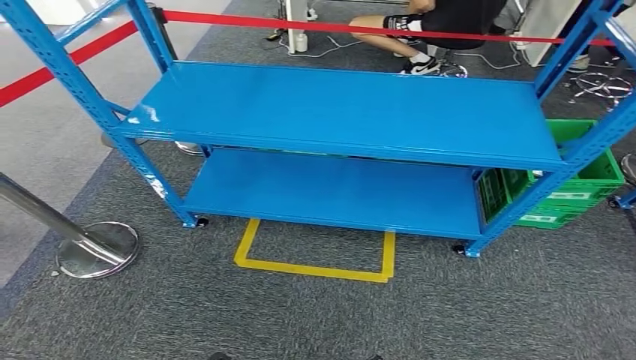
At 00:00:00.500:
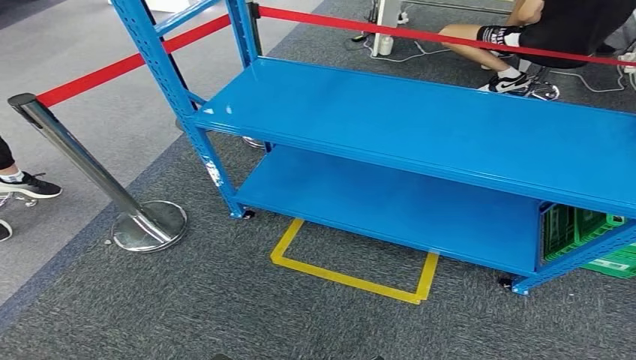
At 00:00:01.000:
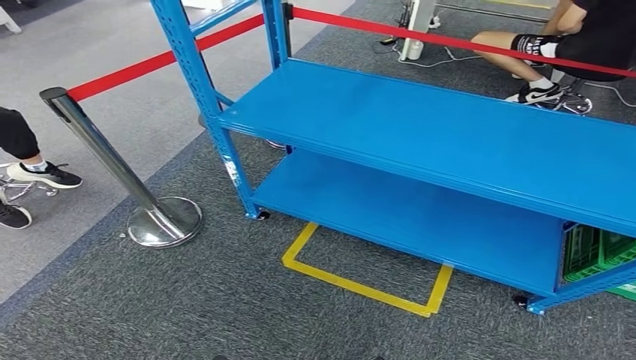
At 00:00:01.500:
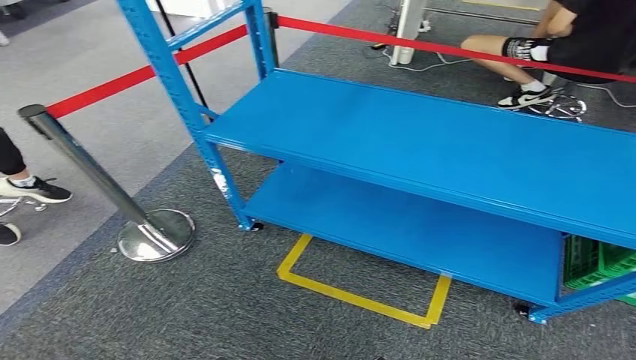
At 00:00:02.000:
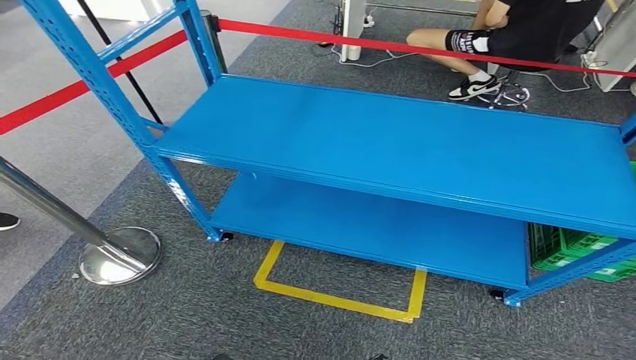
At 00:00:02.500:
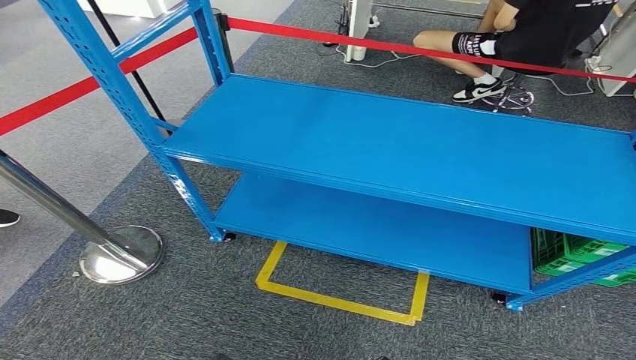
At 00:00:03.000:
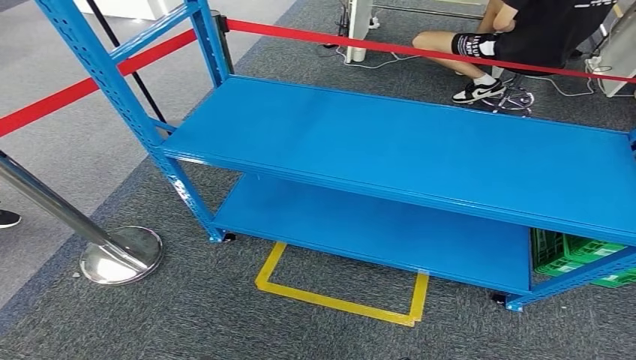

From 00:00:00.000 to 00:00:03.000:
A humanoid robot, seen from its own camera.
Step, from 00:00:00.000 to 00:00:02.500: Return to the initial position at the workbench.
